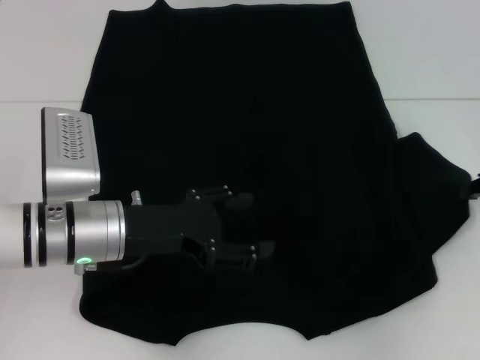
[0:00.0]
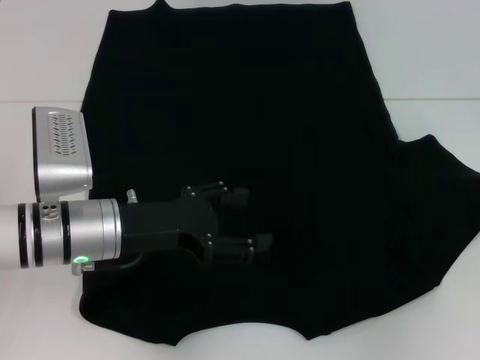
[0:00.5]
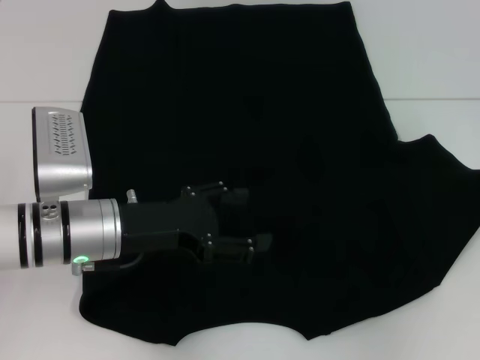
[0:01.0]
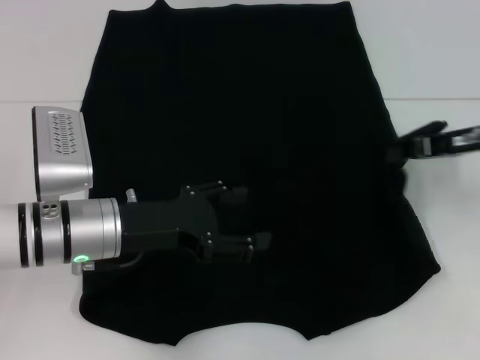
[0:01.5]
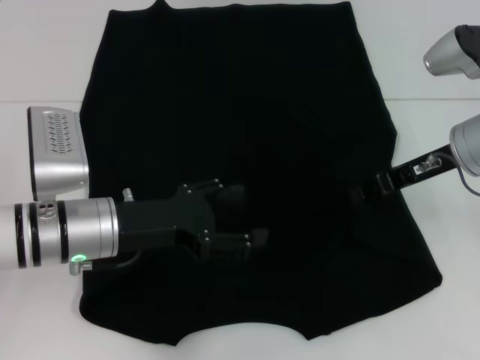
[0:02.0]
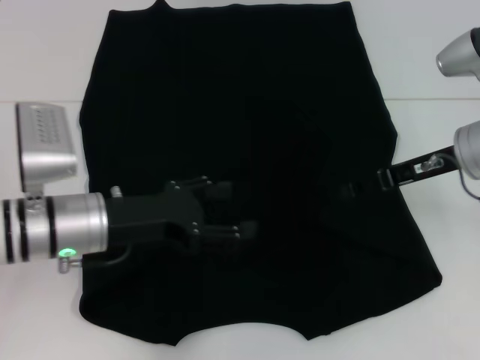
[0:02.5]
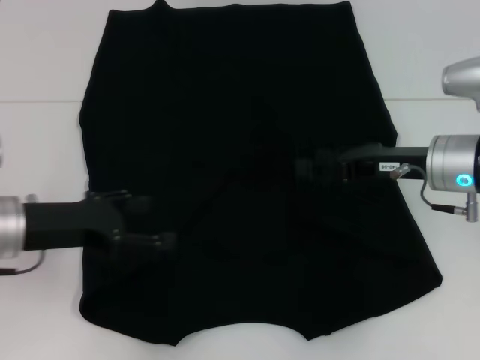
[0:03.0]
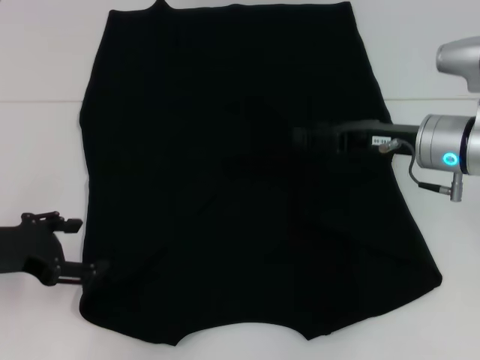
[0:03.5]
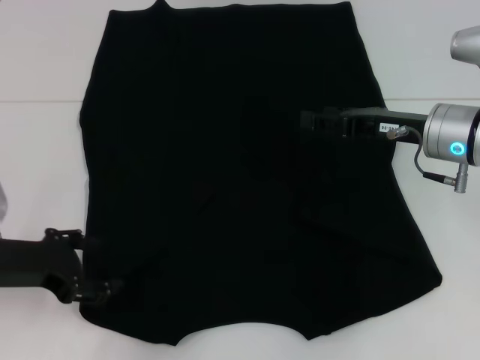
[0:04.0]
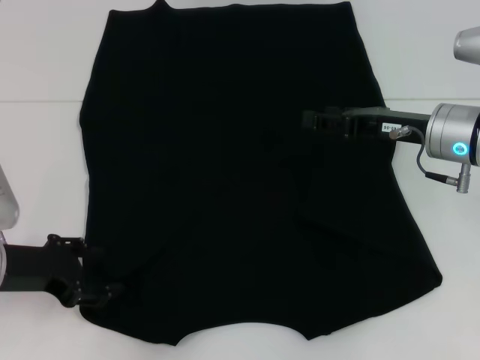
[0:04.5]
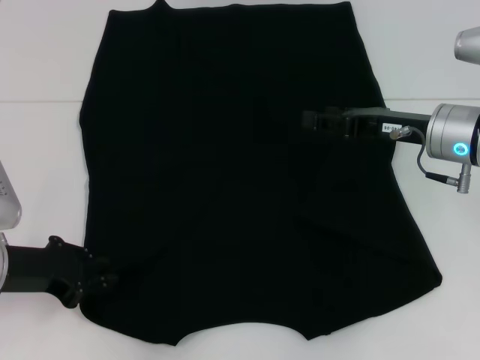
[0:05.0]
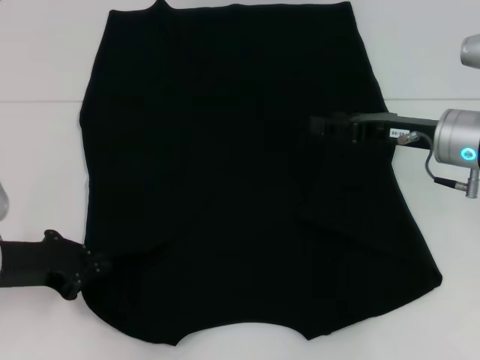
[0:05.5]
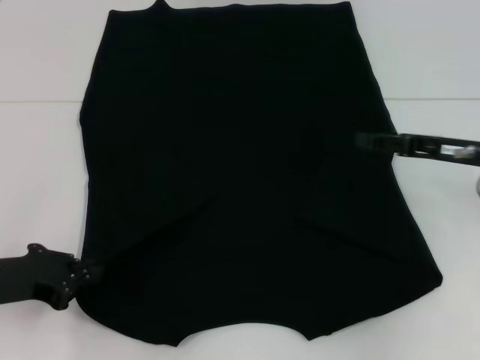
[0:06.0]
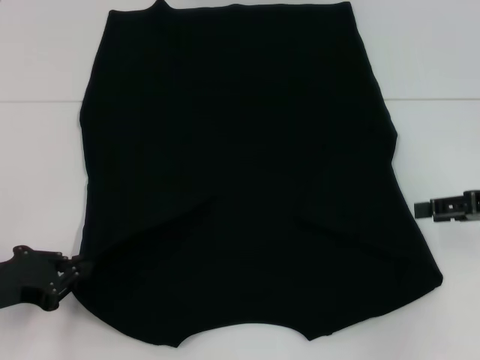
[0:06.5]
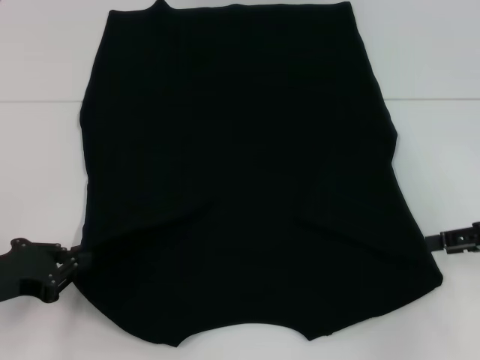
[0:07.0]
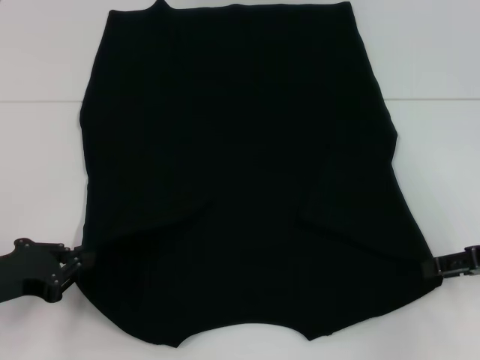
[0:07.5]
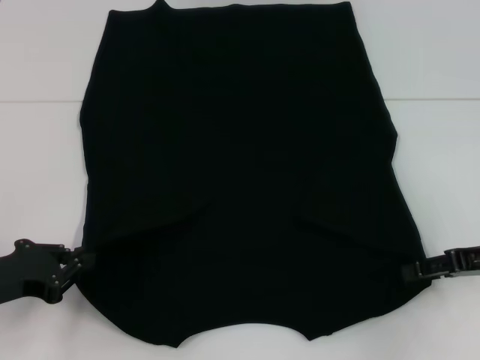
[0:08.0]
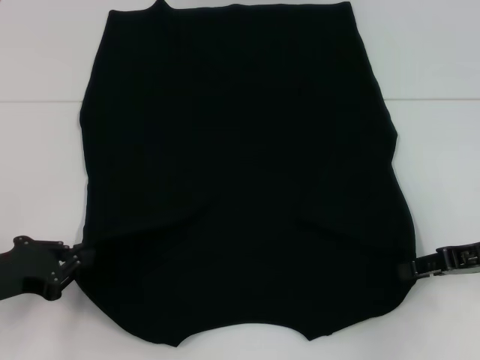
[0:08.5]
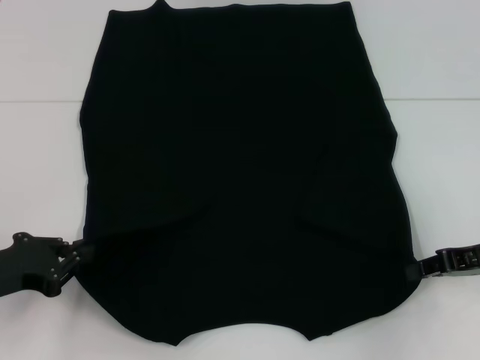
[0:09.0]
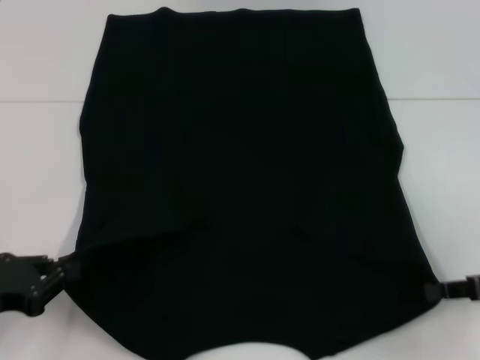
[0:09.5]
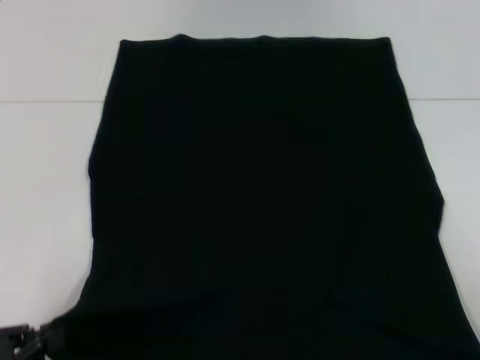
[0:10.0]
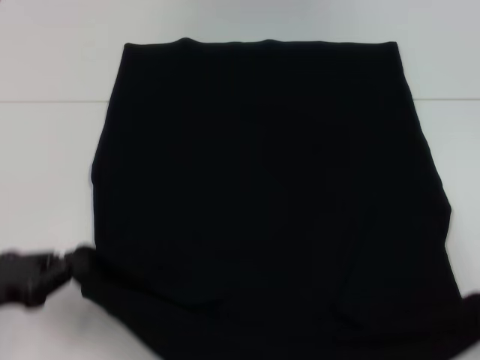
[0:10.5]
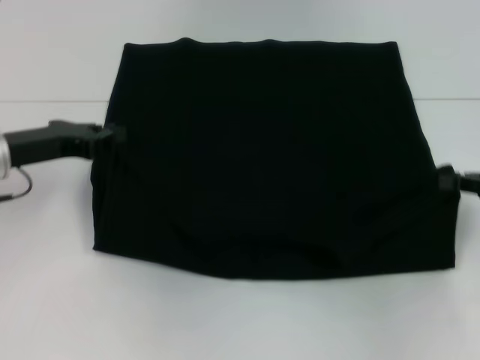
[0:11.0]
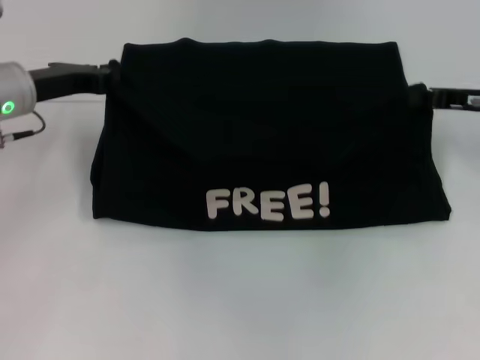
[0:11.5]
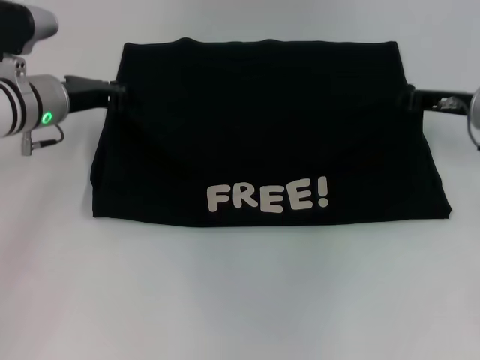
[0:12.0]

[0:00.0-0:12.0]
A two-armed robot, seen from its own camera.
Step, 0:00.0 to 0:02.5: Fold the bottom right sleeve with your right hand.
Step, 0:03.0 to 0:05.0: Grab the bottom left corner with your left hand.
Step, 0:05.5 to 0:09.0: Grab the bottom right corner with your right hand.
0:00.0 to 0:02.0: The right gripper moves to the left, some 10 cm.
0:02.0 to 0:04.0: The left gripper goes some 10 cm to the left. The right gripper opens.
0:04.0 to 0:06.0: The right gripper moves to the right, some 5 cm; the left gripper closes its fingers.
0:06.0 to 0:08.0: The right gripper moves backward, roughly 5 cm.
0:08.0 to 0:10.0: The left gripper travels backward by approximately 10 cm. The right gripper is displaced backward and to the right by roughly 15 cm, and closes.
0:10.0 to 0:12.0: The left gripper heads forward, covering approximately 30 cm; the right gripper heads forward and to the left, covering approximately 25 cm.

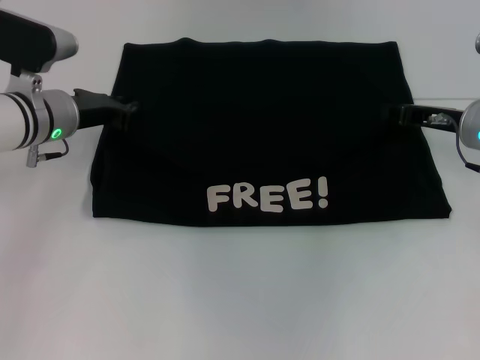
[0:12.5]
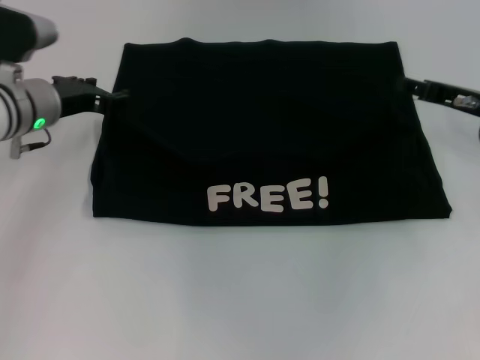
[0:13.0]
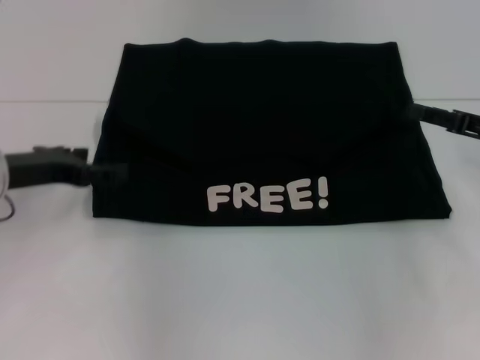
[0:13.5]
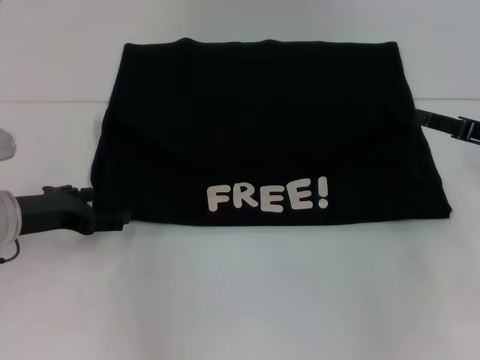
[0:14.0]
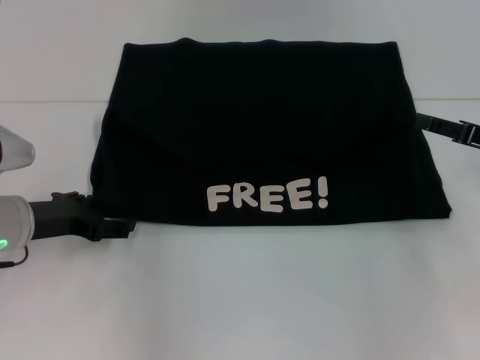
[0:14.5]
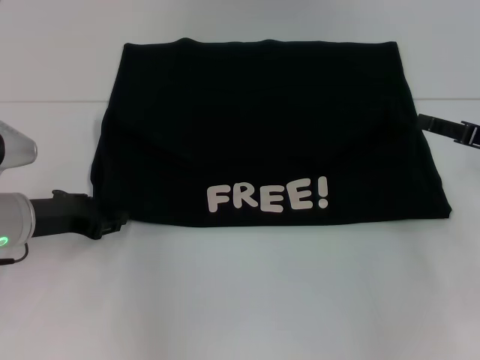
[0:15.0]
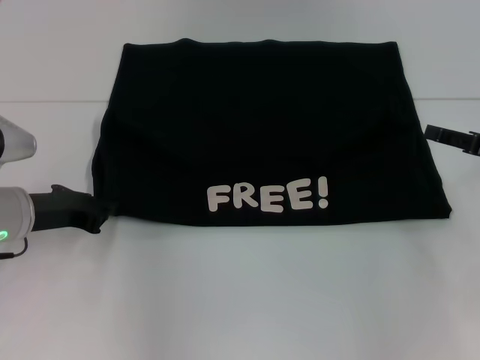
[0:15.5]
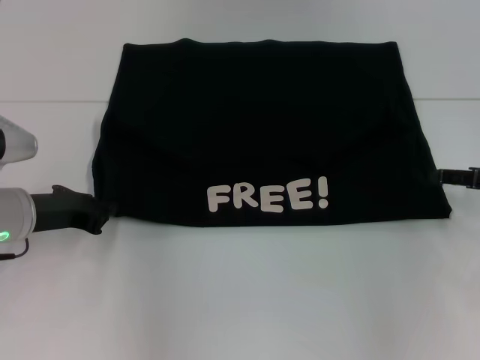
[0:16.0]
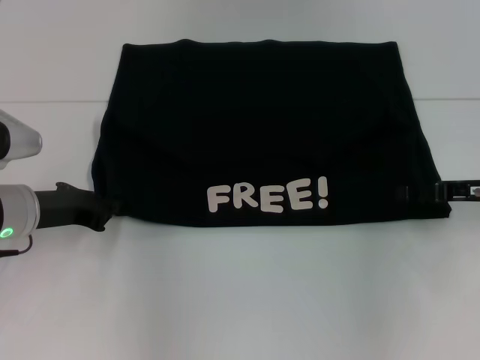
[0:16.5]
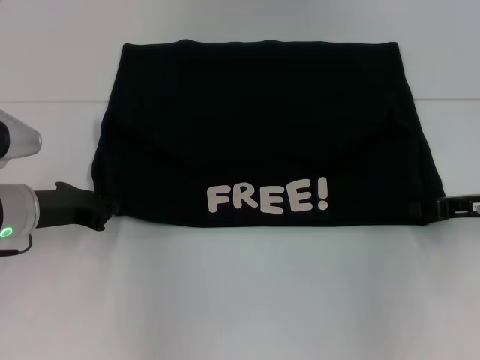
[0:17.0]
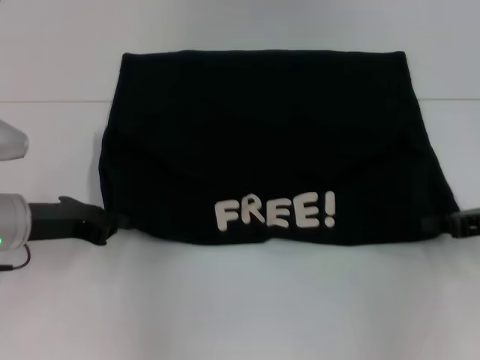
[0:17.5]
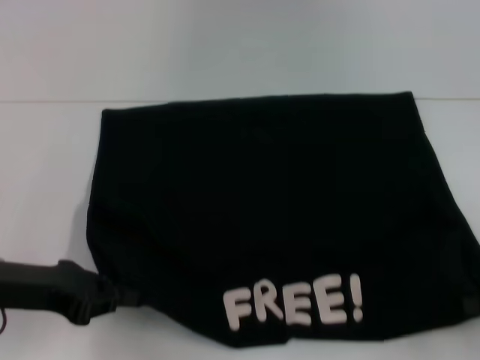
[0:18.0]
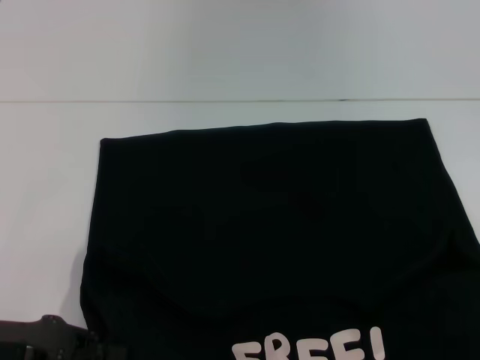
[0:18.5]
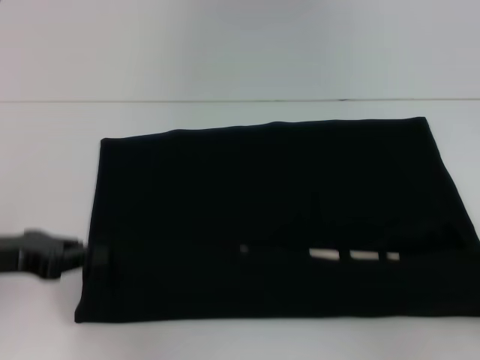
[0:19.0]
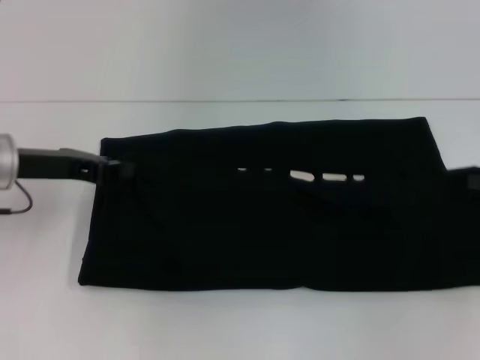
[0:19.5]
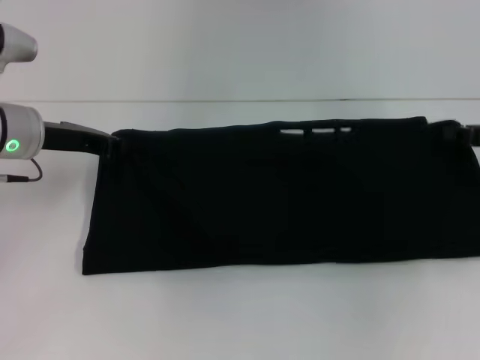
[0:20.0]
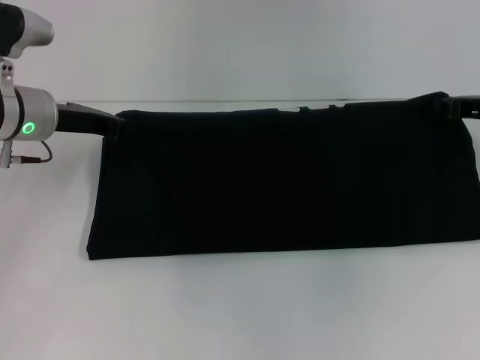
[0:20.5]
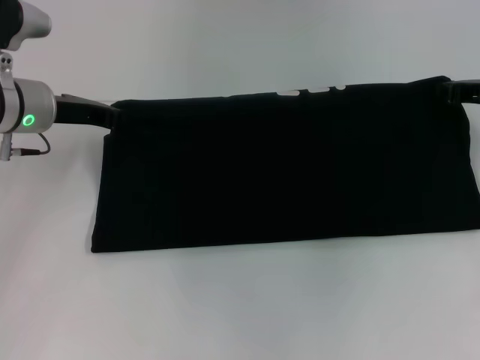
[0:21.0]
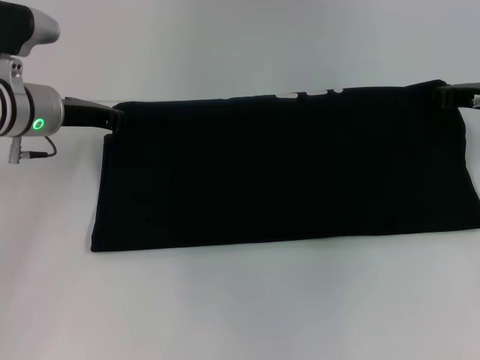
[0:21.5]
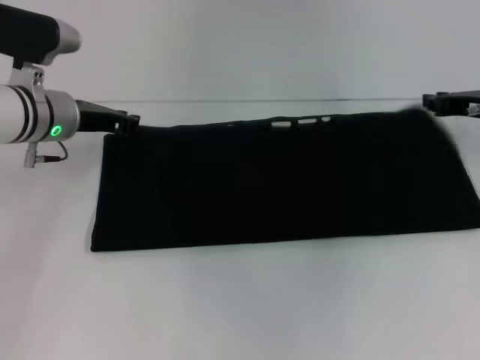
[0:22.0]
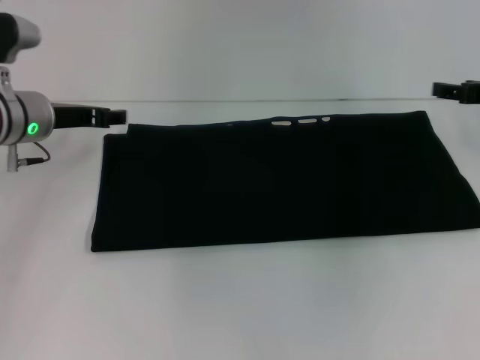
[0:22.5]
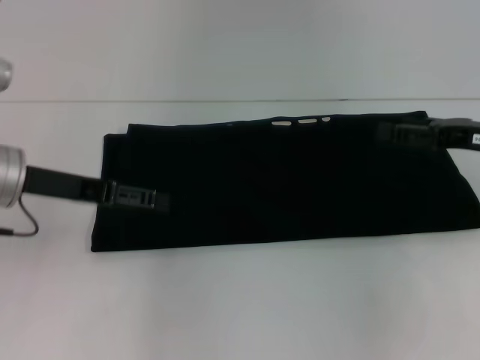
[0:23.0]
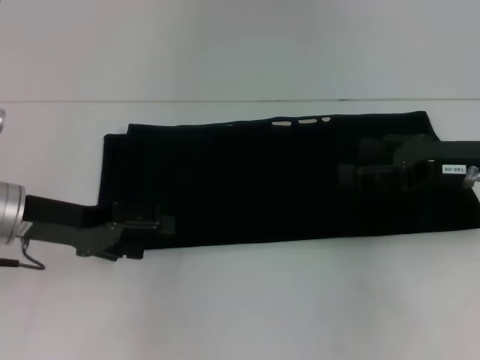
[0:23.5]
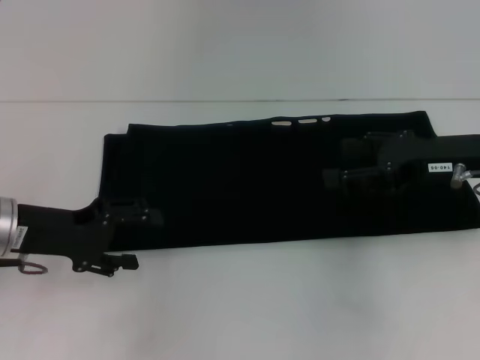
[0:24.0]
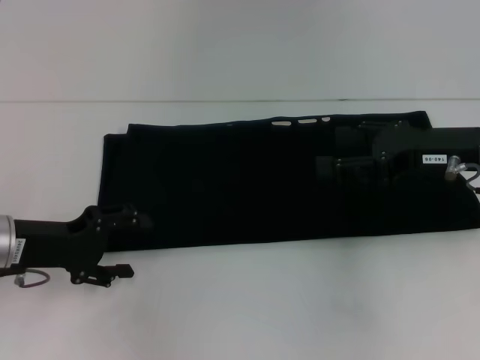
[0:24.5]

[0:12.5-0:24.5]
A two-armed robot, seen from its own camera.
Step, 0:13.0 to 0:18.0: Pull the clothes with your left hand.
Step, 0:13.0 to 0:18.0: Pull the clothes with your right hand.
Step, 0:18.5 to 0:22.0: Fold the clothes with your right hand.
0:12.5 to 0:14.5: The right gripper travels to the right and backward by about 10 cm, and opens its fingers, while the left gripper heads backward, covering some 10 cm, and opens its fingers.
0:14.5 to 0:16.5: The left gripper closes up.
0:16.5 to 0:18.5: The left gripper moves backward, about 15 cm, while the right gripper heads backward and to the right, covering about 20 cm, and closes its fingers.
0:18.5 to 0:20.5: The two grippers go roughly 20 cm forward.
0:20.5 to 0:22.5: The left gripper opens its fingers, while the right gripper opens its fingers.
0:22.5 to 0:24.5: The right gripper heads to the left and backward, covering some 10 cm, and opens up, while the left gripper is displaced backward by about 10 cm, and opens up.

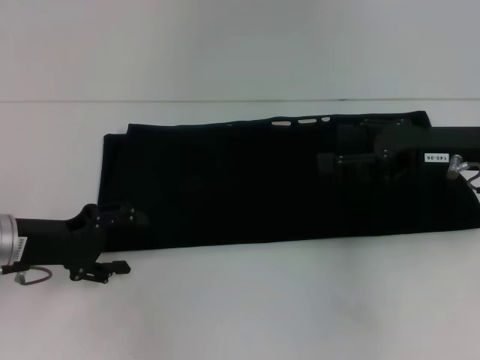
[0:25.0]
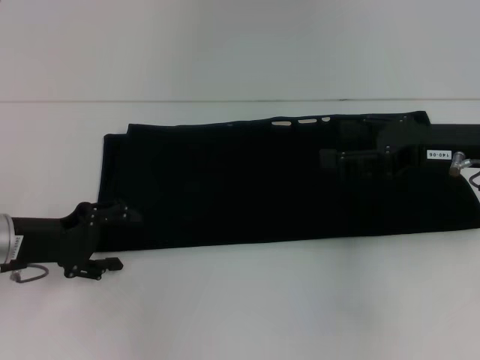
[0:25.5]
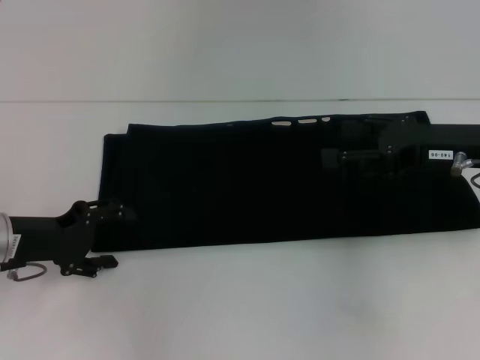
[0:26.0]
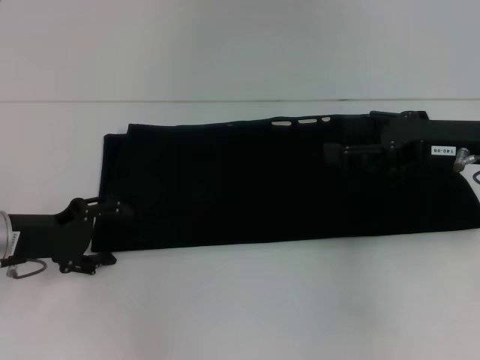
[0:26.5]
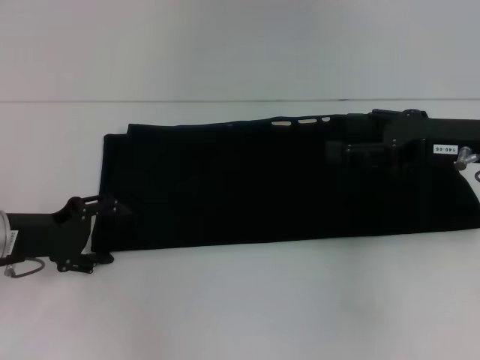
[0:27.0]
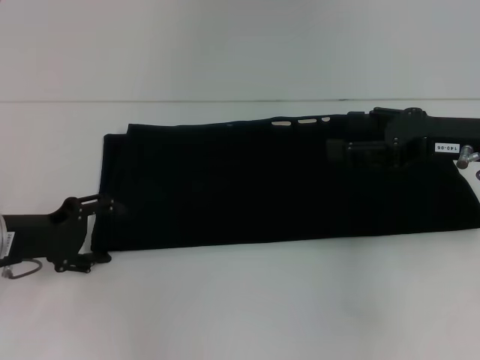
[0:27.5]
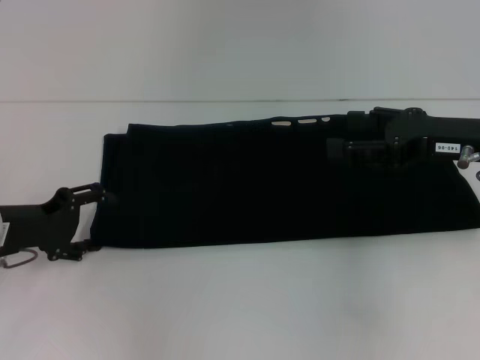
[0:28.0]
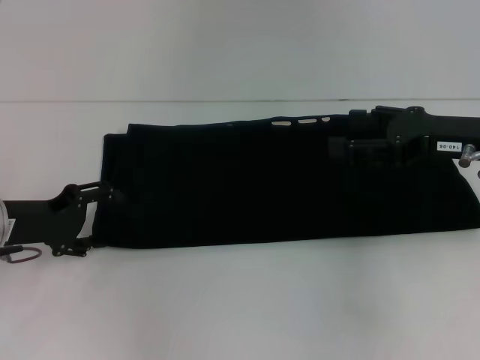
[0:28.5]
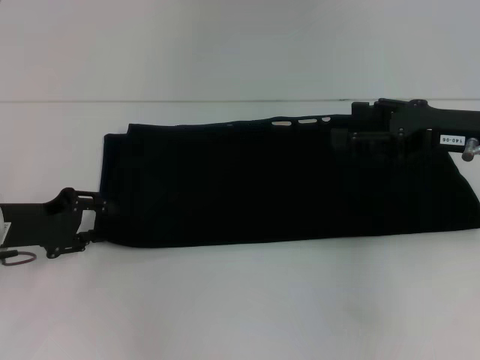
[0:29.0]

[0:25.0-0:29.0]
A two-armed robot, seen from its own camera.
0:25.0 to 0:29.0: The grippers make only small movements.
